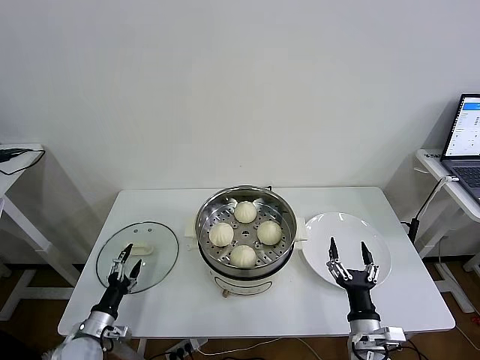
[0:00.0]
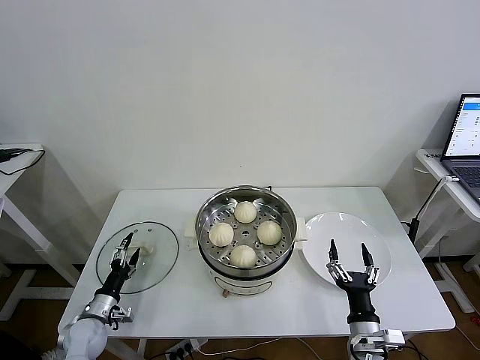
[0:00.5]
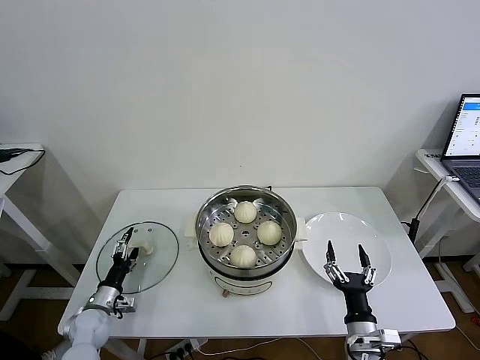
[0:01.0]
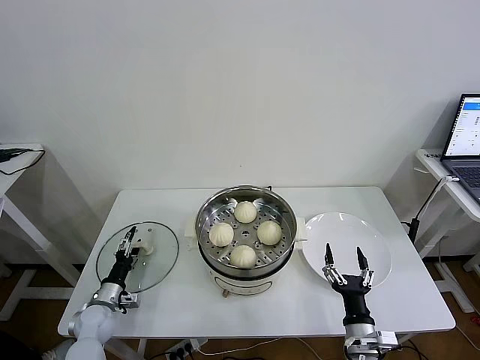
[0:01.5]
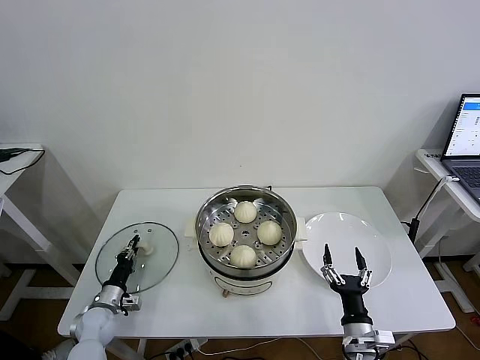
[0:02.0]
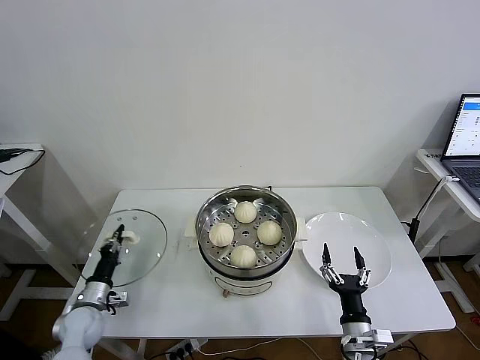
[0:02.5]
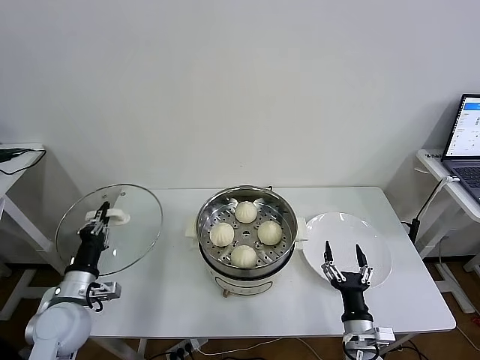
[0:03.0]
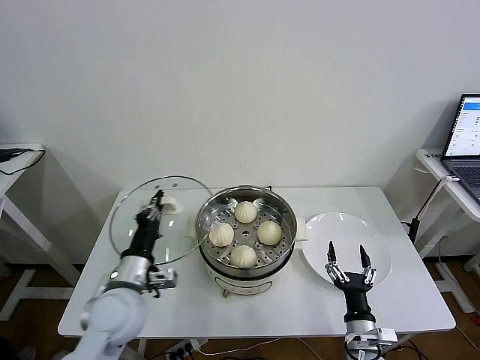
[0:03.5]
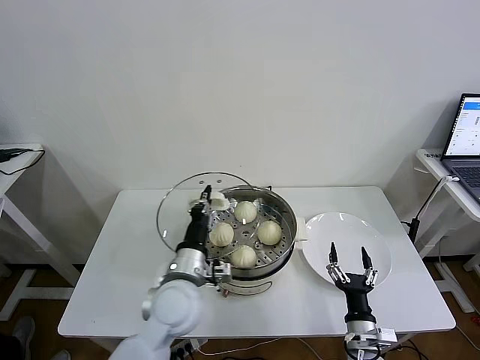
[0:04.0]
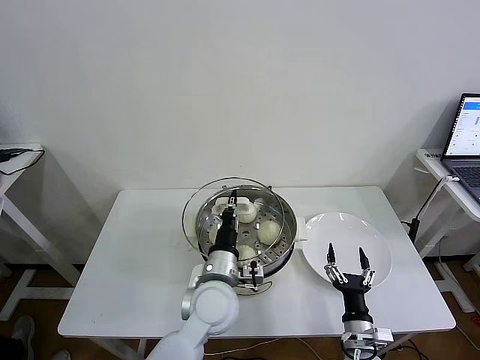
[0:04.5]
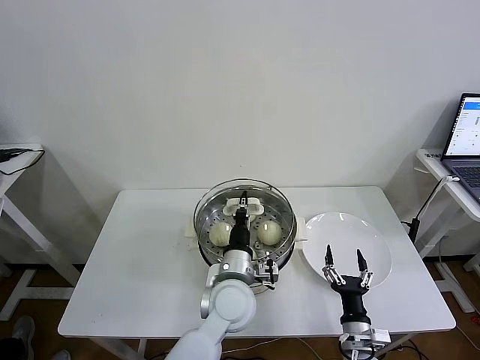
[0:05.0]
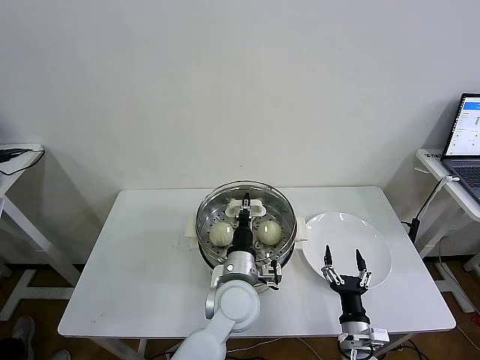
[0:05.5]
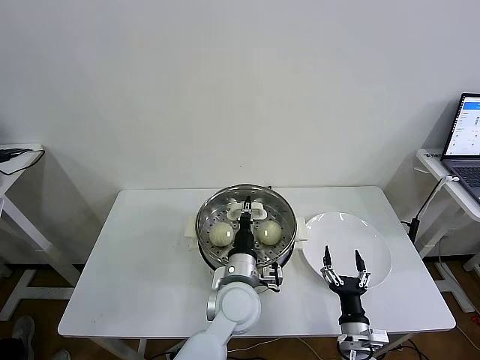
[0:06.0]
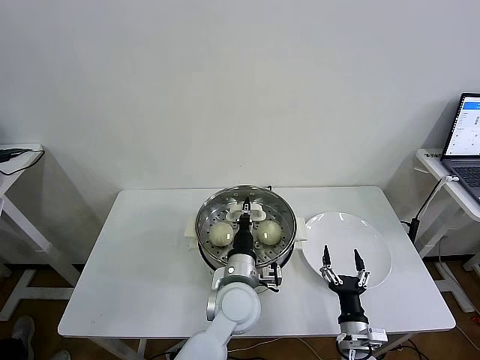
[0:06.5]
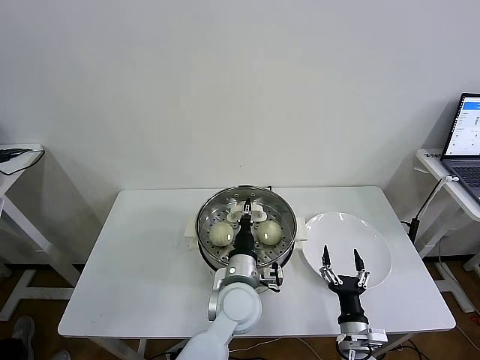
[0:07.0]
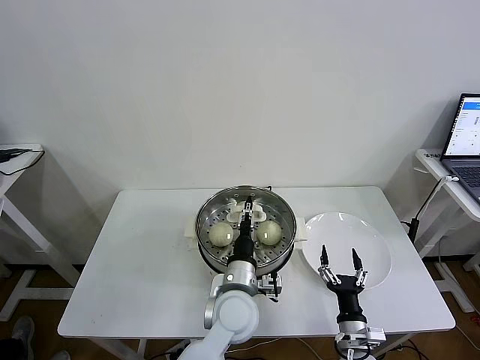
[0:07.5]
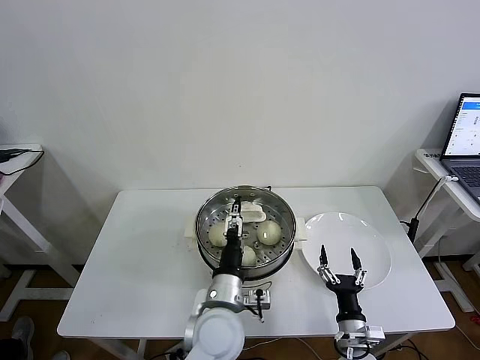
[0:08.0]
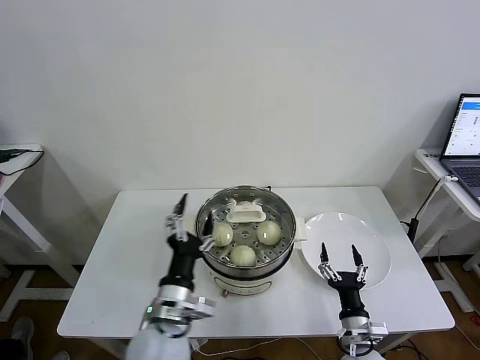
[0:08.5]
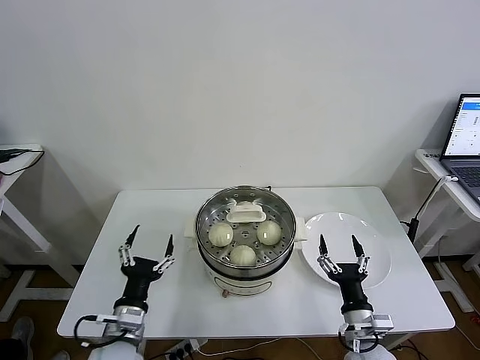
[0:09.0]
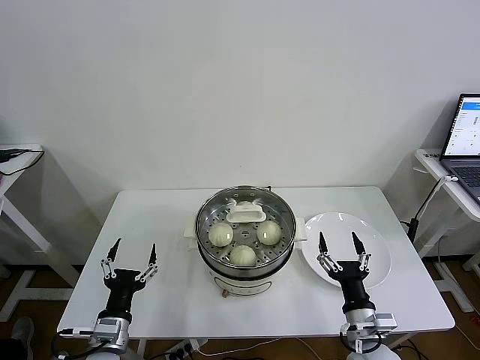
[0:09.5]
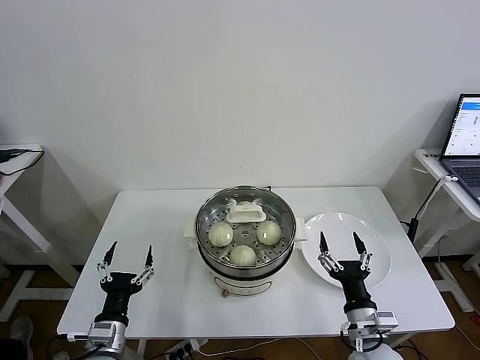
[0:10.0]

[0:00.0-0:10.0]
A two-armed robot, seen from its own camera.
Task of the whole recording: take steamed baozi put them in steamer then cover it.
Step, 0:00.0 to 0:02.0: Grasp the pot lid with left gripper.
Step, 0:02.5 to 0:08.0: Place the pot lid on the steamer with left gripper.
0:00.0 to 0:02.0: The left gripper moves forward, roughly 10 cm, and closes its fingers.
0:02.0 to 0:04.0: The left gripper travels to the right and upward by about 35 cm.
0:04.0 to 0:06.0: The left gripper heads to the right, covering about 10 cm.
0:06.0 to 0:08.0: The left gripper shifts by roughly 5 cm, and opens.
0:08.0 to 0:10.0: The left gripper heads to the left, covering roughly 25 cm, while the right gripper travels upward by approximately 10 cm.

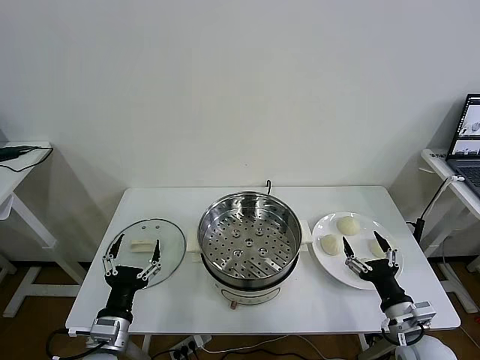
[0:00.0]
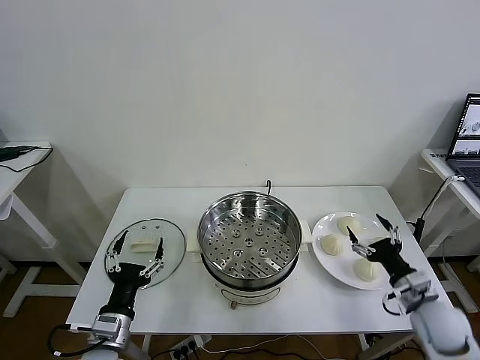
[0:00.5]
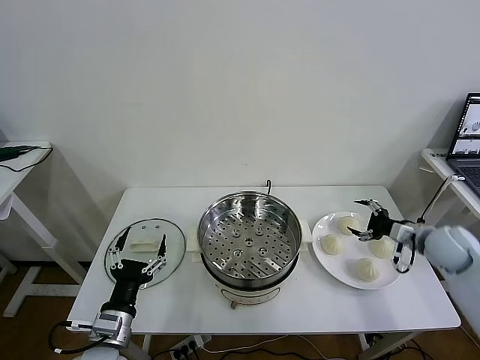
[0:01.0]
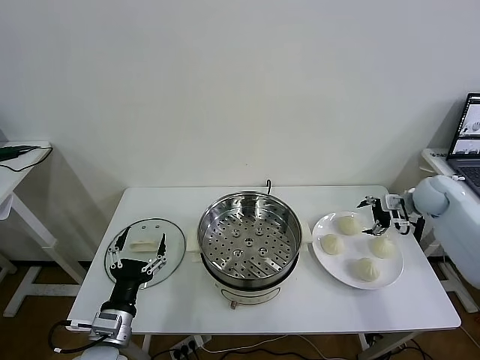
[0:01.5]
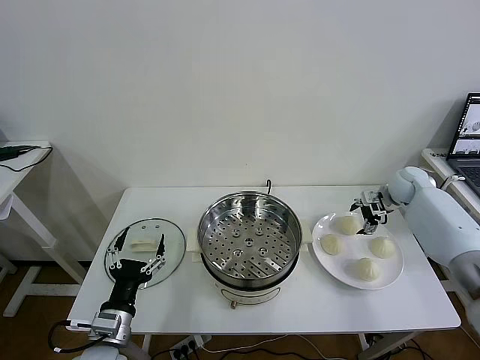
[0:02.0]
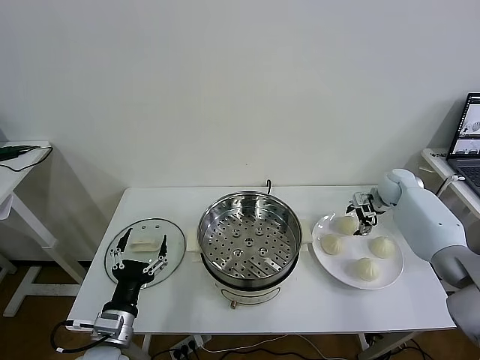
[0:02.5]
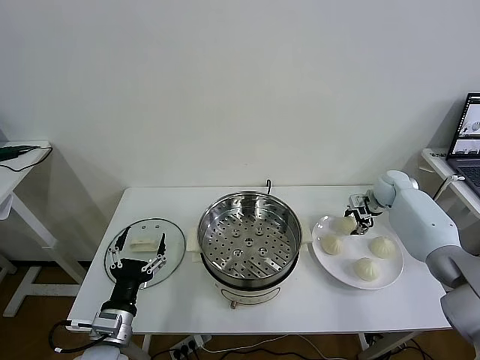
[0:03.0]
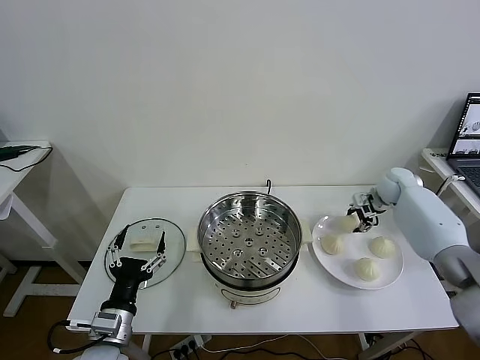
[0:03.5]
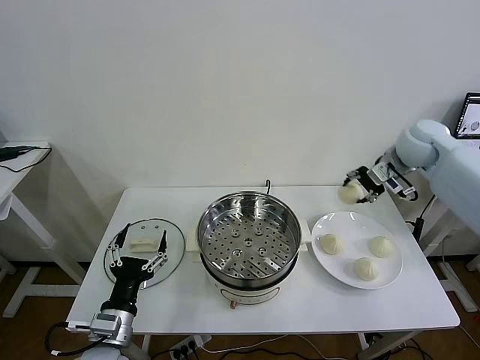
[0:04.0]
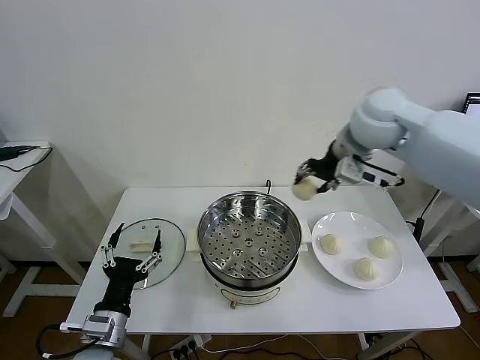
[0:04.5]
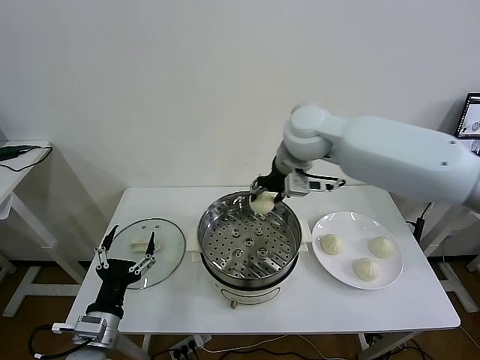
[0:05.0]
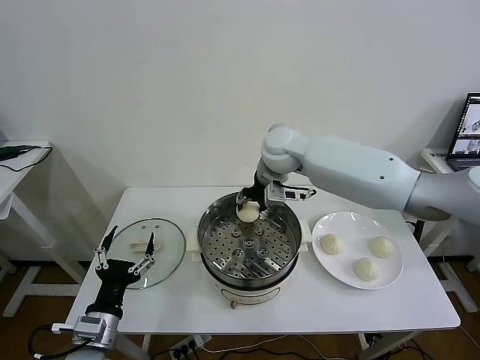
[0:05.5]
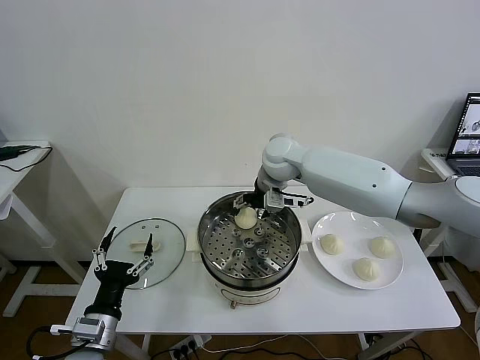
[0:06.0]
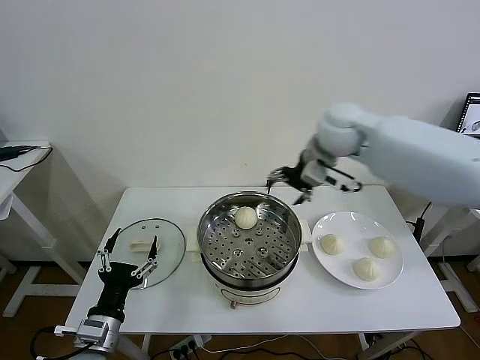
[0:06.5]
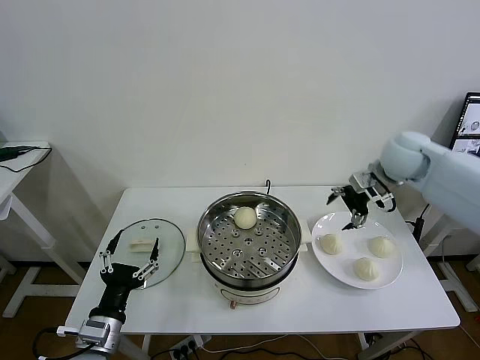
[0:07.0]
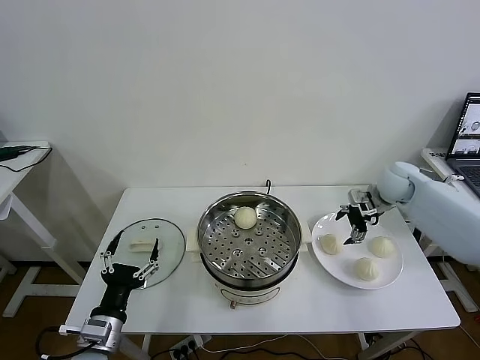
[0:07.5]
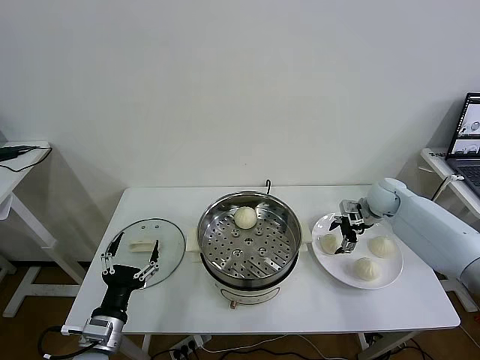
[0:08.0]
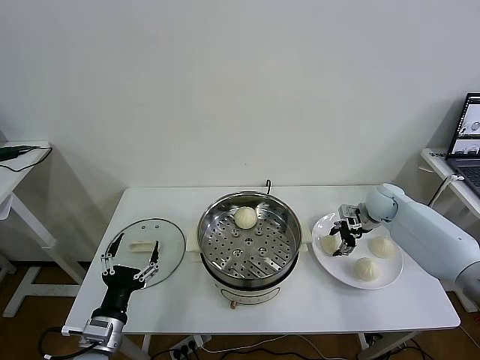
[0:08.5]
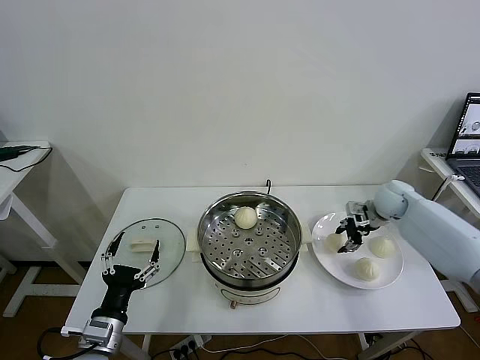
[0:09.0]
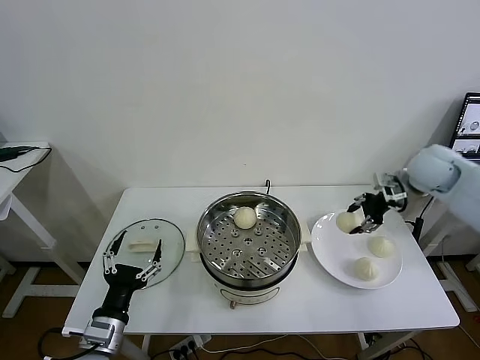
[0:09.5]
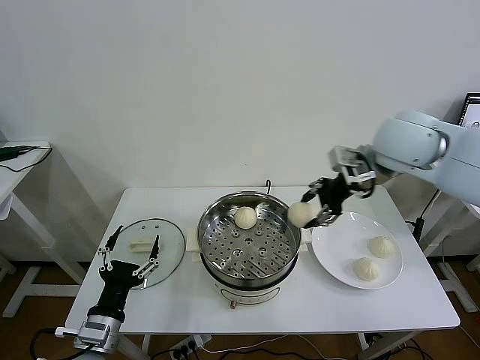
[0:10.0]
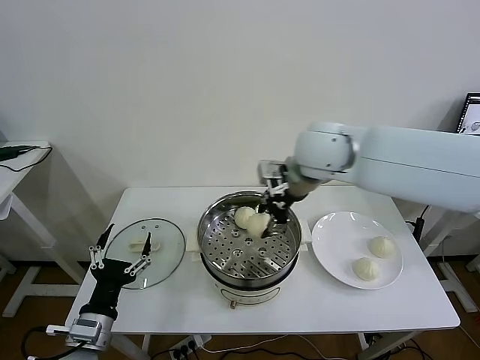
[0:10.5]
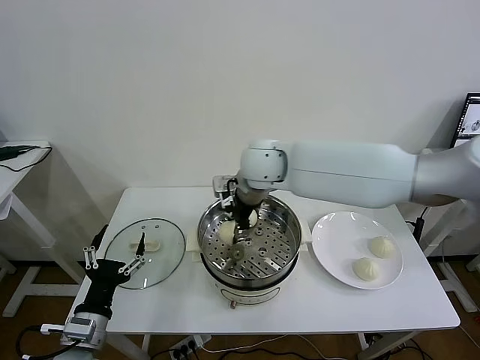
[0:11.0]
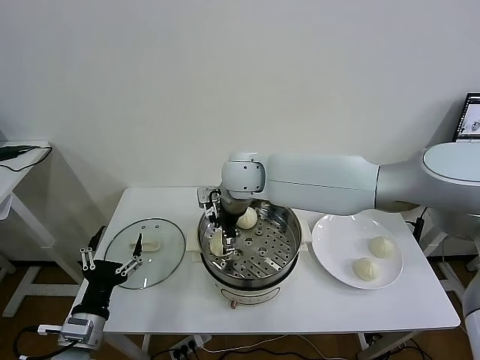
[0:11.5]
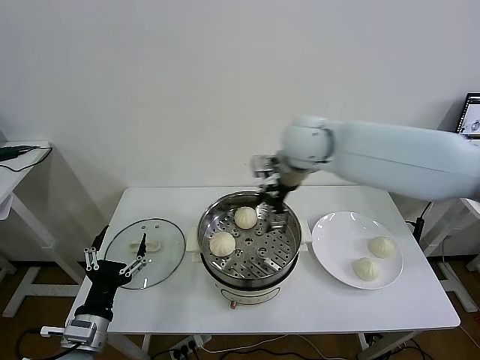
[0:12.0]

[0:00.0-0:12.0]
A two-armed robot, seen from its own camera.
Task of the whole recording: take steamed baozi put them in steamer then cover it.
Step, 0:00.0 to 0:03.0: Grasp the baozi in the plate with right gripper.
Step, 0:03.5 to 0:06.0: Place the baozi on the steamer with right gripper.
Step, 0:06.5 to 0:08.5: Grasp the baozi in the plate with right gripper.
Step, 0:09.0 to 0:11.5: Place the baozi on the steamer with right gripper.
0:02.0 to 0:04.0: The right gripper heads upward and to the left, covering roughly 20 cm, and closes up.
0:04.0 to 0:06.0: The right gripper goes roughly 25 cm to the left, and opens up.
0:06.0 to 0:08.0: The right gripper goes approximately 30 cm to the right and downward.
0:08.0 to 0:10.0: The right gripper goes approximately 30 cm upward, to the left and backward, and closes.
0:10.0 to 0:12.0: The right gripper travels to the left and forward by about 10 cm, and opens up.

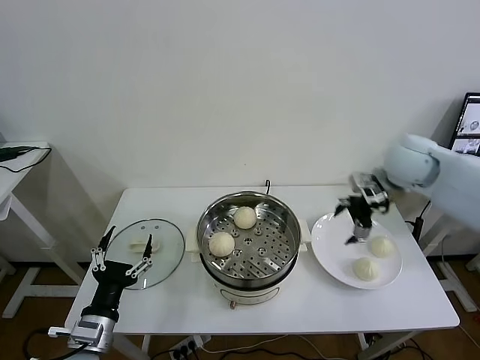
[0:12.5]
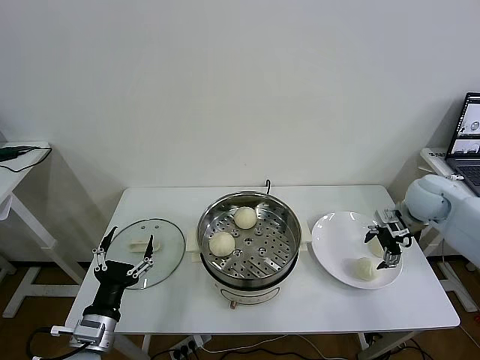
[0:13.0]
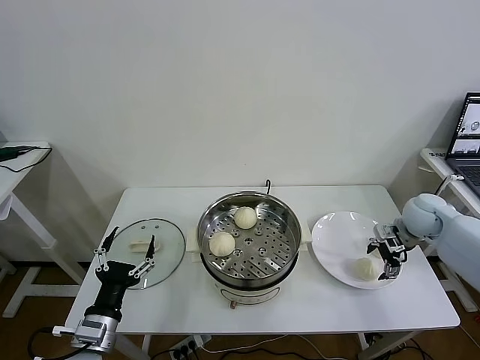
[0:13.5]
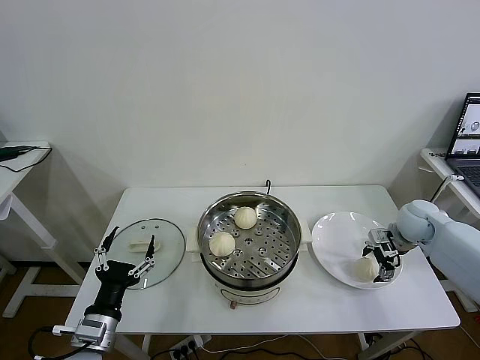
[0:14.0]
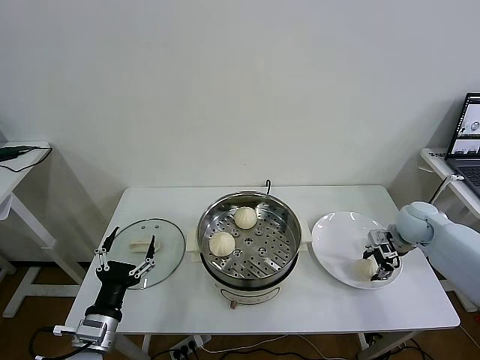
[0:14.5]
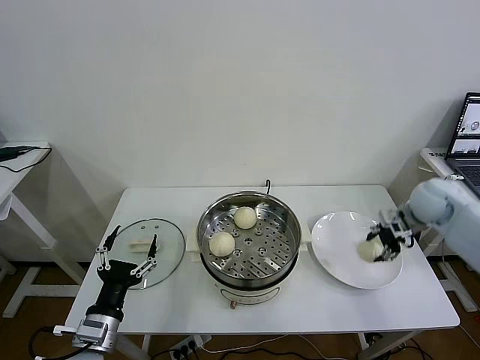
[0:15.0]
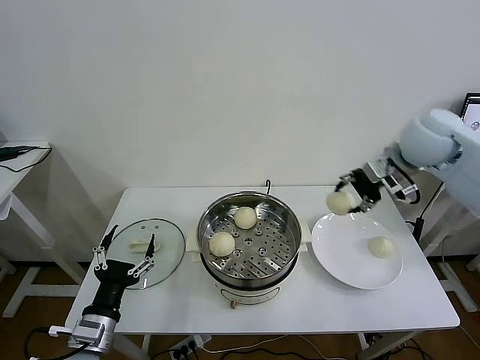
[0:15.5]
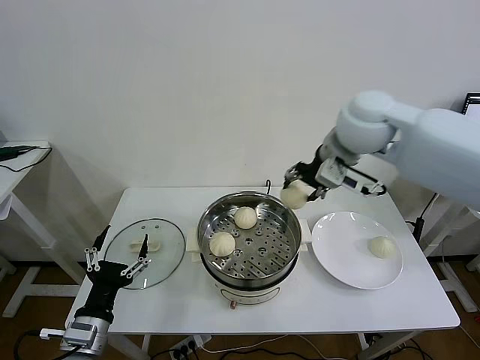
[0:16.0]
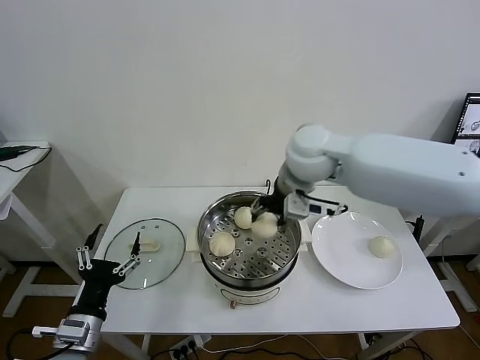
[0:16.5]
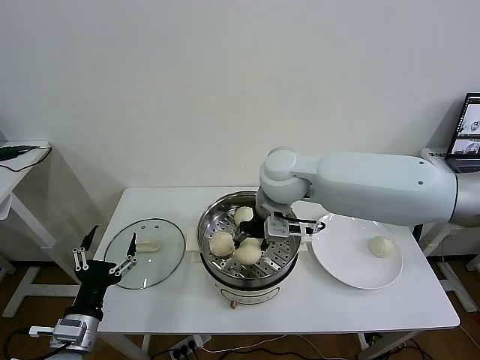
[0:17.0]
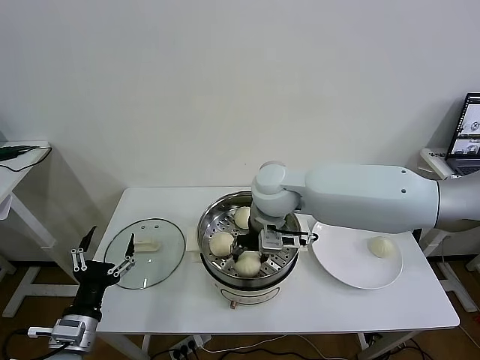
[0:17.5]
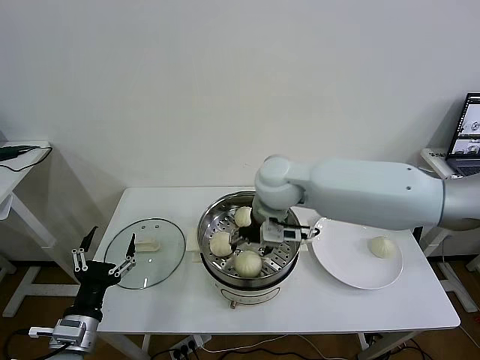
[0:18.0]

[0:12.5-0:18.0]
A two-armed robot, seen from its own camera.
Task of the whole recording: take steamed baozi put them in steamer then cover it.
Step, 0:12.5 to 0:14.0: Grasp the baozi in the plate with right gripper.
Step, 0:15.0 to 0:18.0: Place the baozi on the steamer with right gripper.
0:12.5 to 0:14.5: The right gripper goes some 20 cm downward and to the right, and closes its fingers.
0:14.5 to 0:16.0: The right gripper heads upward and to the left, covering roughly 35 cm.
0:16.0 to 0:18.0: The right gripper goes roughly 15 cm to the left and downward, and opens its fingers.
